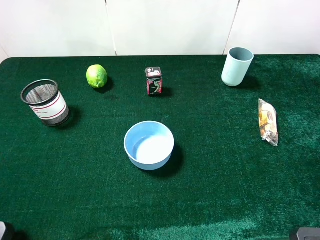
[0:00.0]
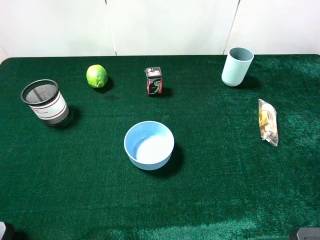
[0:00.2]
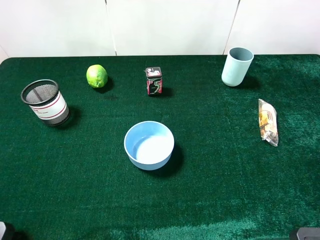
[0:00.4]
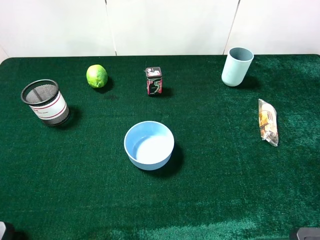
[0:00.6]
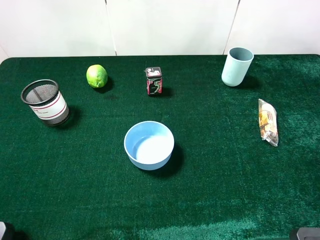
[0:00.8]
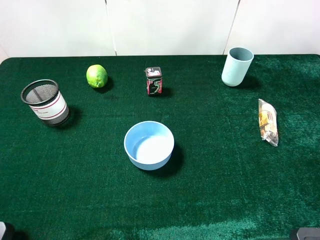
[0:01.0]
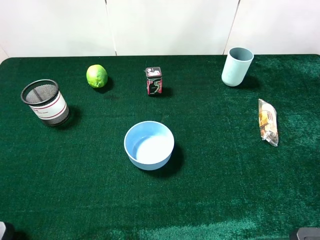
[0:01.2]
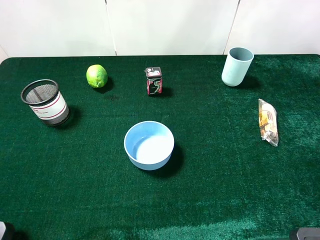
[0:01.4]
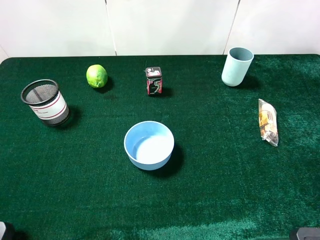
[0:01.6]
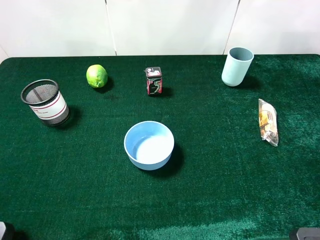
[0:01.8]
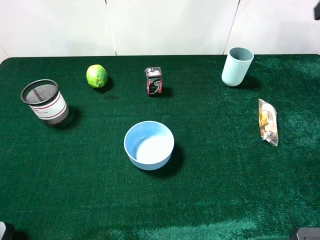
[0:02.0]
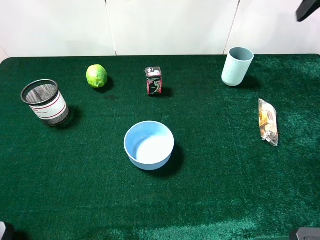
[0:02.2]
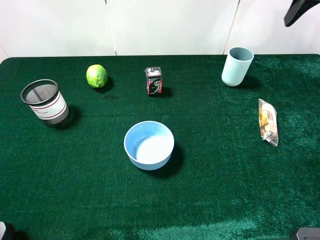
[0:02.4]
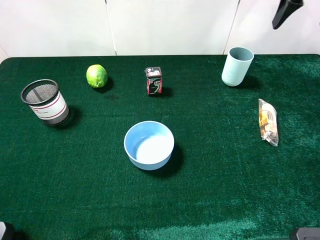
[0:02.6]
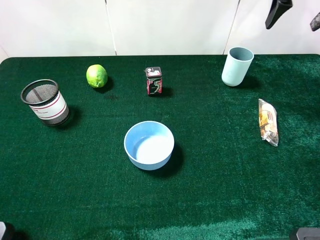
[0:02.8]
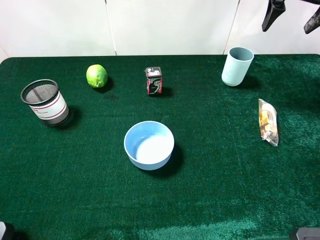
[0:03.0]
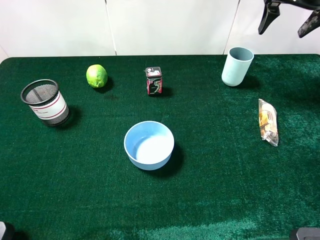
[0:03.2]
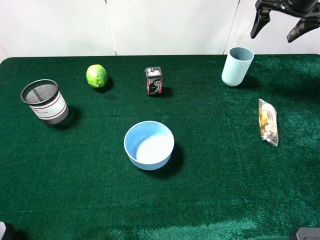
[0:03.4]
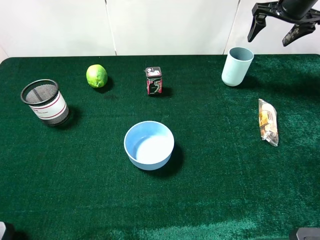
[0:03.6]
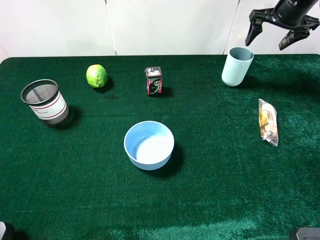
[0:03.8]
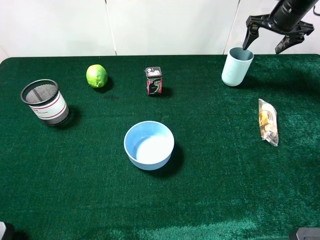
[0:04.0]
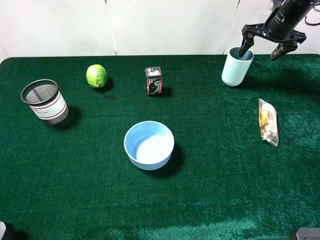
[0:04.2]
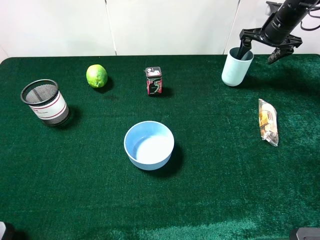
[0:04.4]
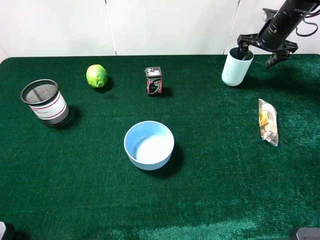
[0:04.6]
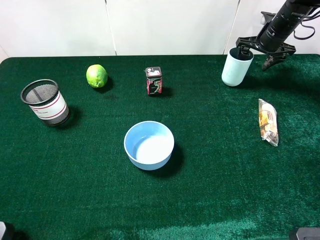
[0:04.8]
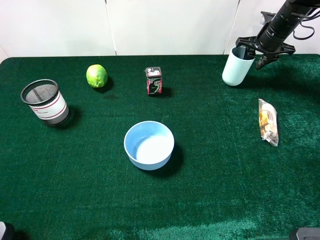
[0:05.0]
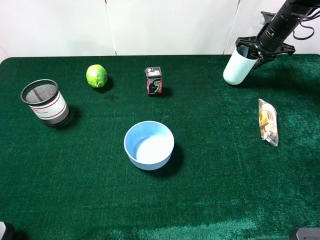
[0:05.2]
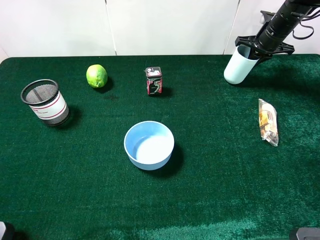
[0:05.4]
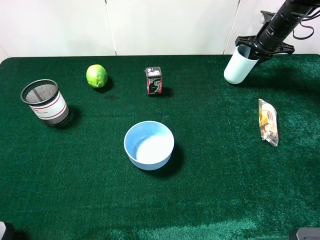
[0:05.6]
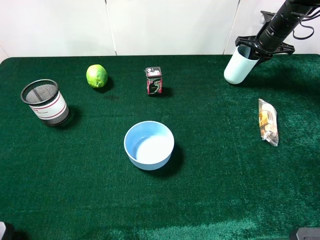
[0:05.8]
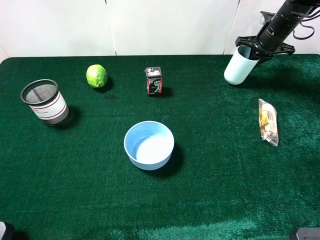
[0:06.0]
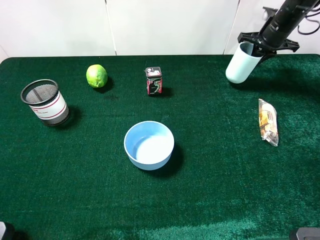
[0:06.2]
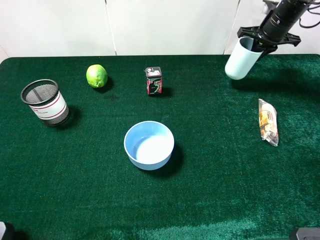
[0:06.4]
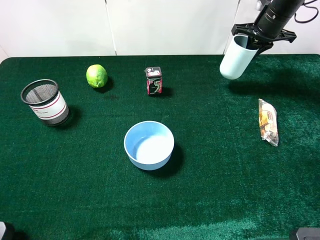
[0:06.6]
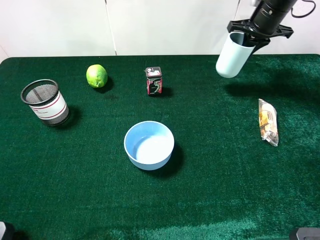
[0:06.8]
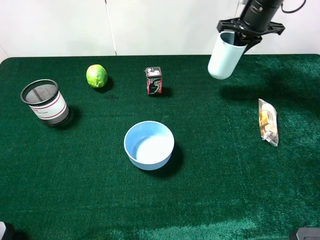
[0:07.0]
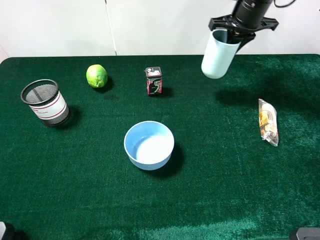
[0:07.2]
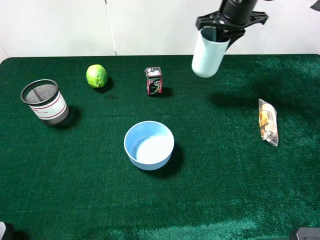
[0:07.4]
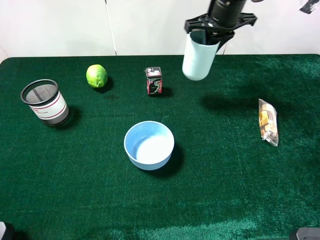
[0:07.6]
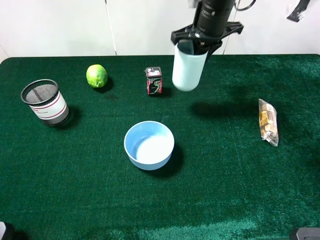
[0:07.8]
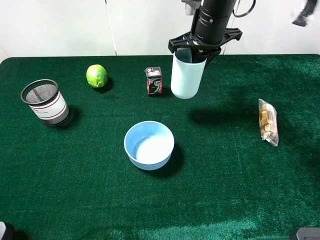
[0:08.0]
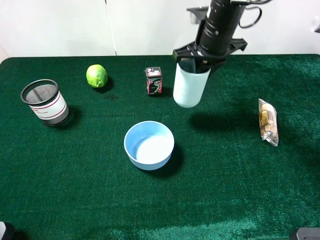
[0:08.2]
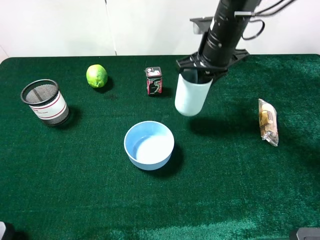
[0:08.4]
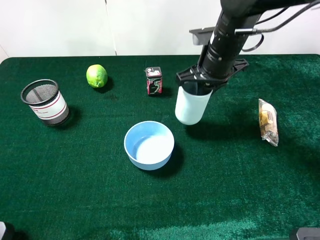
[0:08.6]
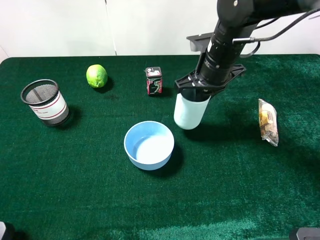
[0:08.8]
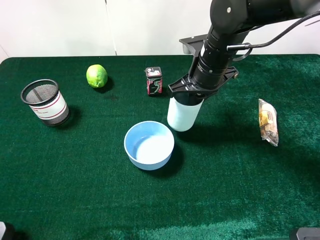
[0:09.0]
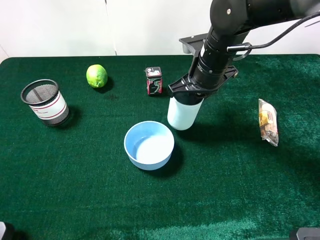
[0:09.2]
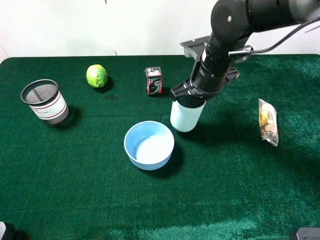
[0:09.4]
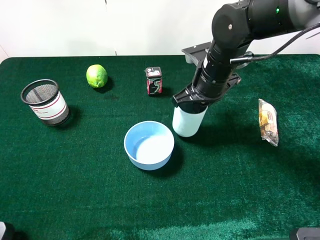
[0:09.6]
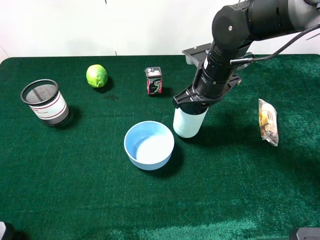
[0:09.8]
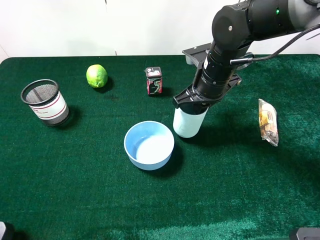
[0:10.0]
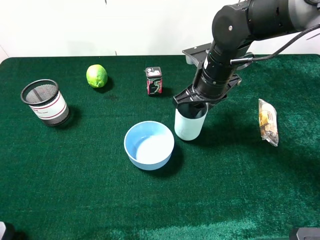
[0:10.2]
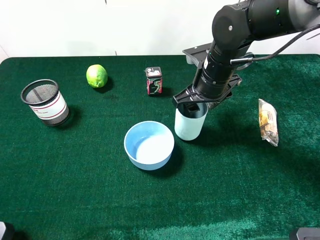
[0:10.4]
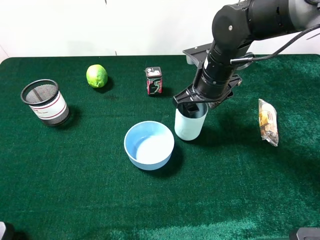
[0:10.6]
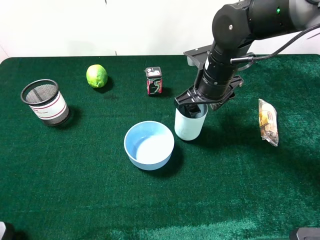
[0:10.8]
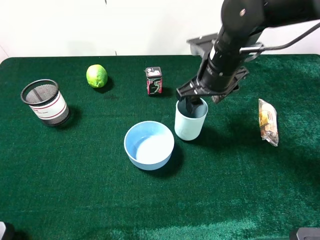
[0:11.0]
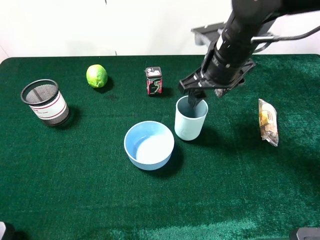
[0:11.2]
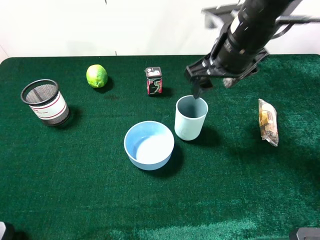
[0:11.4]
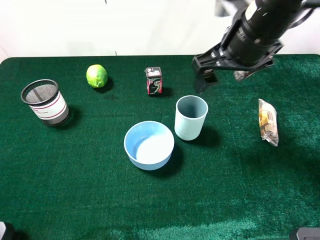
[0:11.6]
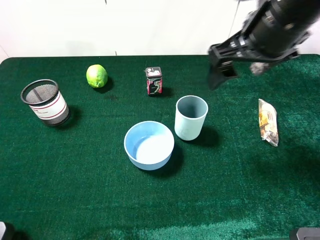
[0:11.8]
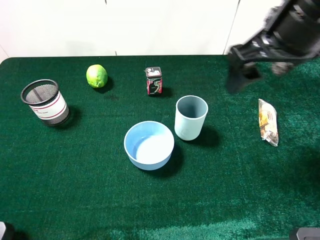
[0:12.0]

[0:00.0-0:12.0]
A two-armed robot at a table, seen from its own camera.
Task of the whole recording: the gripper move the object.
Step, 0:00.0 to 0:05.6: Grasp the cyan cup with the right gripper mangosteen.
Step, 0:05.8 to 0:11.0: Place the cyan cup on the table with the right gripper.
0:01.6 to 0:03.0: The right gripper is displaced forward by roughly 25 cm.
0:03.0 to 0:04.4: The right gripper moves downward and forward, about 15 cm.
0:04.4 to 0:06.0: The right gripper closes.
0:06.0 to 0:07.6: The right gripper moves to the left, upward and backward, some 20 cm.
0:07.6 to 0:09.0: The right gripper travels backward and downward by about 15 cm.
0:09.0 to 0:10.4: The right gripper opens up.
0:10.4 to 0:12.0: The right gripper travels upward, backward and to the right by some 20 cm.

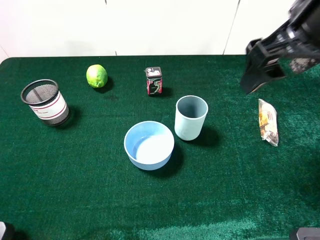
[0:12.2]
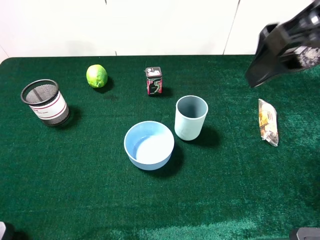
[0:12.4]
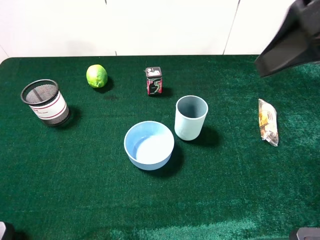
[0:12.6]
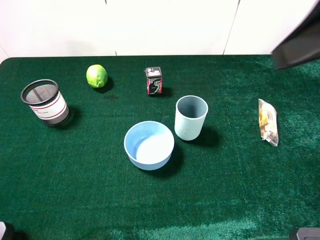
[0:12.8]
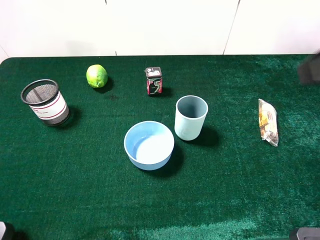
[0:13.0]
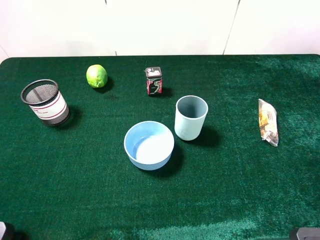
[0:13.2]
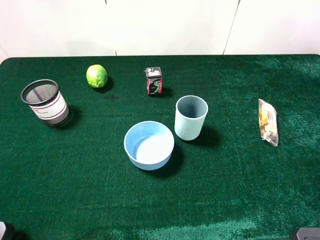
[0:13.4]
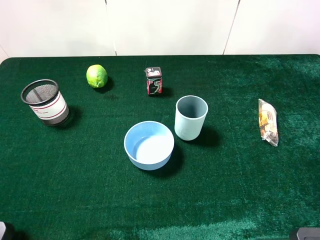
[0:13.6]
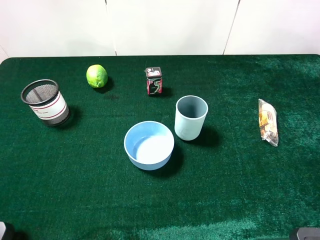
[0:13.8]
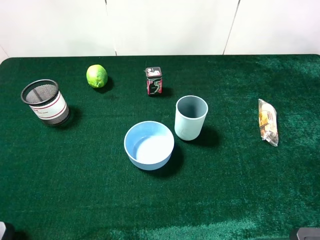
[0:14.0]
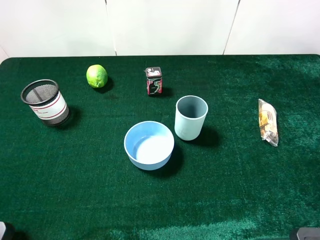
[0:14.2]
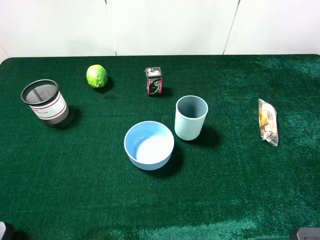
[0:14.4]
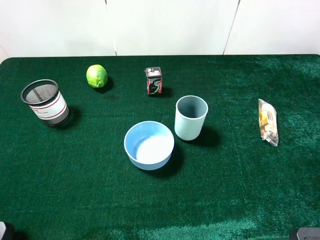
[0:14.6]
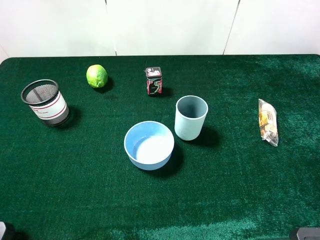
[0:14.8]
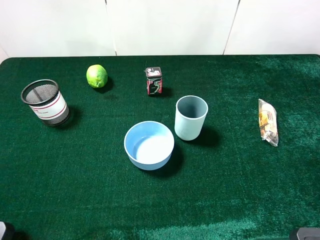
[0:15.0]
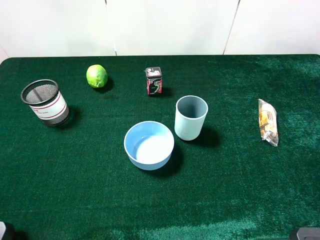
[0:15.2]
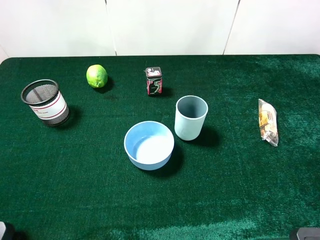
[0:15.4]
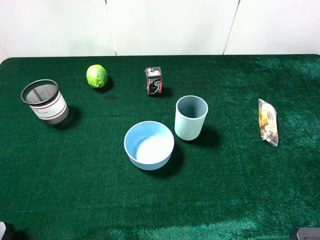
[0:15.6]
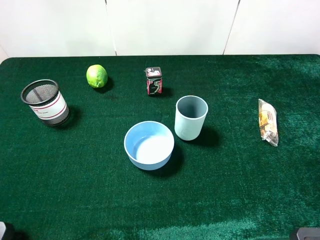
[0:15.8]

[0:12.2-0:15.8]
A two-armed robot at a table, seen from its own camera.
Task of the whole recording: the gripper move the object.
0:12.2 to 0:14.0: The right gripper goes approximately 20 cm backward and to the right.

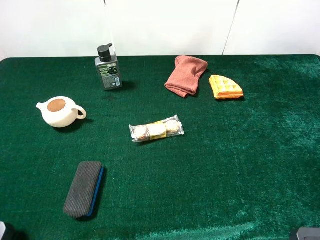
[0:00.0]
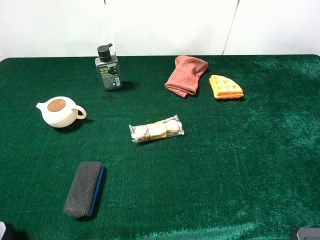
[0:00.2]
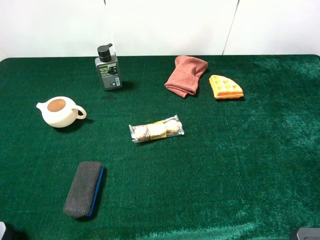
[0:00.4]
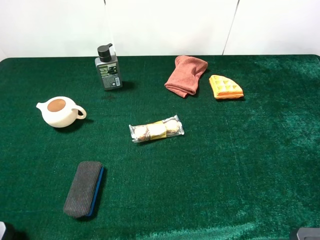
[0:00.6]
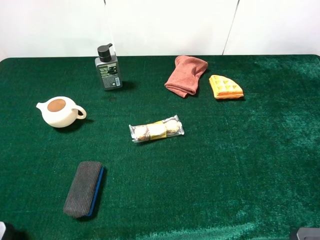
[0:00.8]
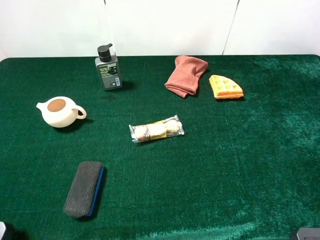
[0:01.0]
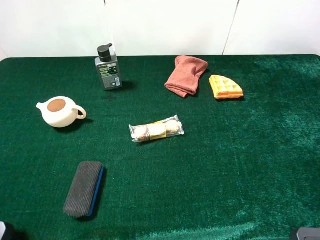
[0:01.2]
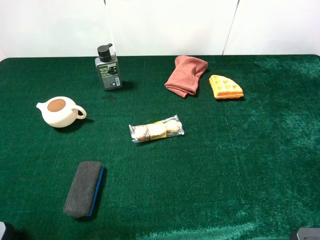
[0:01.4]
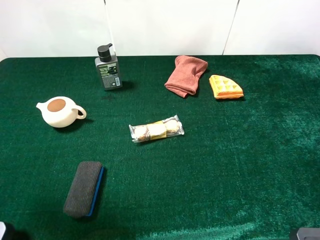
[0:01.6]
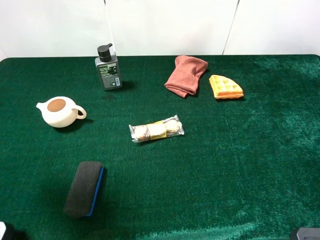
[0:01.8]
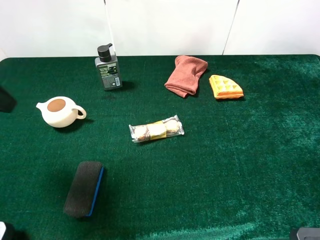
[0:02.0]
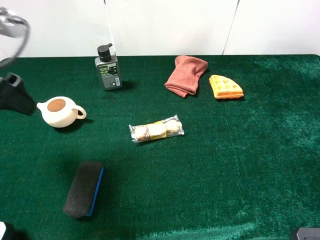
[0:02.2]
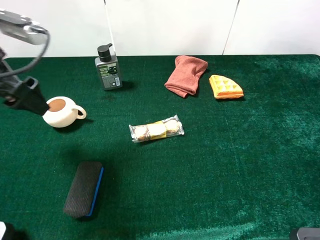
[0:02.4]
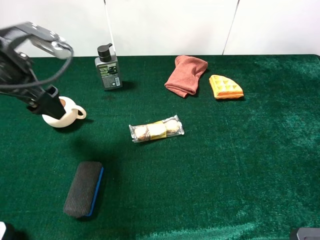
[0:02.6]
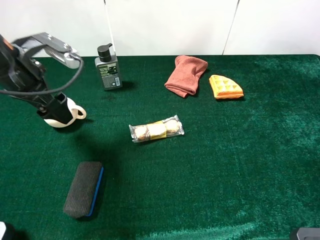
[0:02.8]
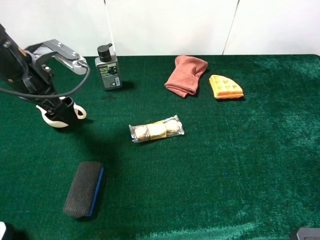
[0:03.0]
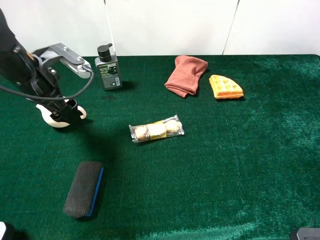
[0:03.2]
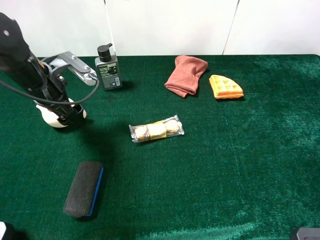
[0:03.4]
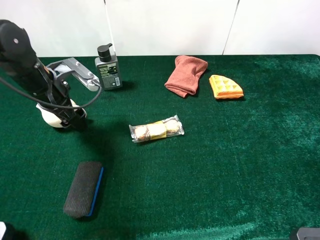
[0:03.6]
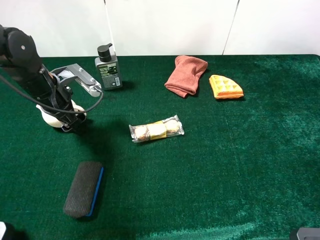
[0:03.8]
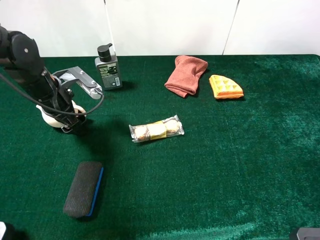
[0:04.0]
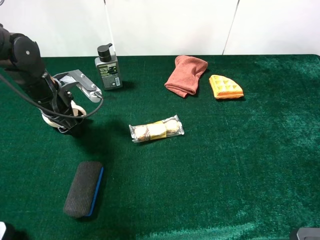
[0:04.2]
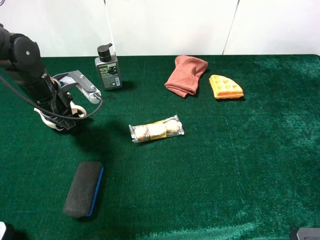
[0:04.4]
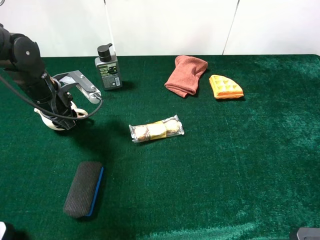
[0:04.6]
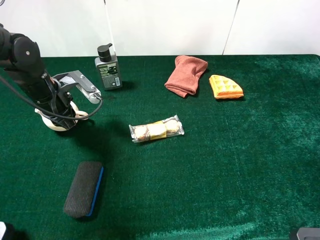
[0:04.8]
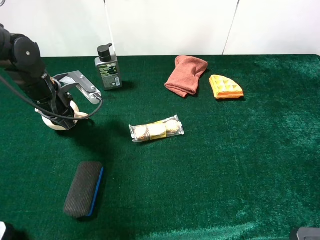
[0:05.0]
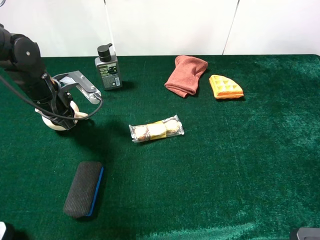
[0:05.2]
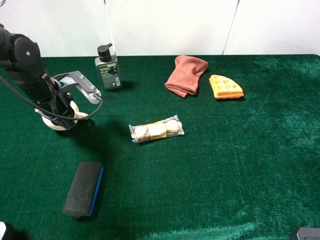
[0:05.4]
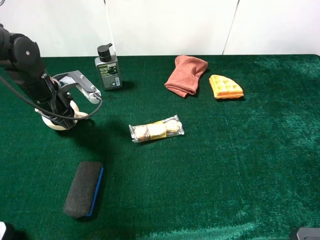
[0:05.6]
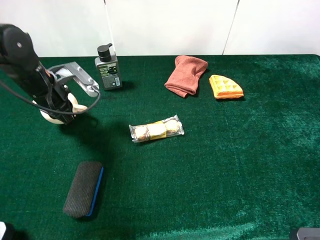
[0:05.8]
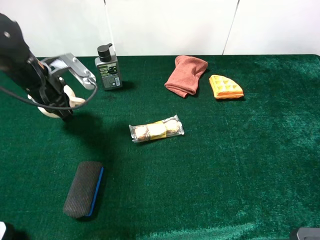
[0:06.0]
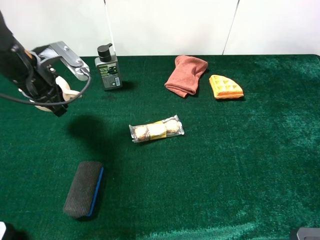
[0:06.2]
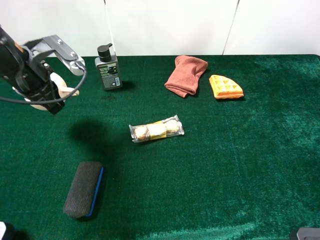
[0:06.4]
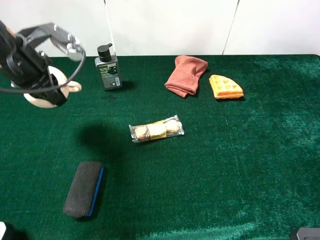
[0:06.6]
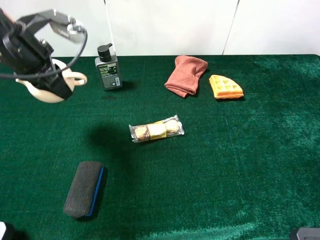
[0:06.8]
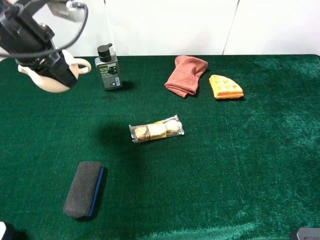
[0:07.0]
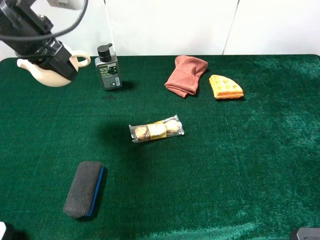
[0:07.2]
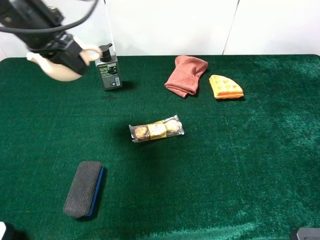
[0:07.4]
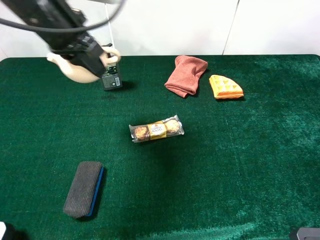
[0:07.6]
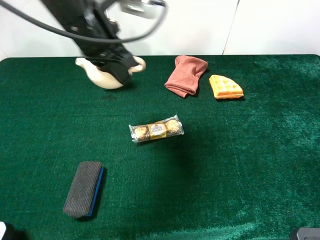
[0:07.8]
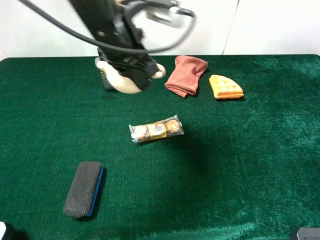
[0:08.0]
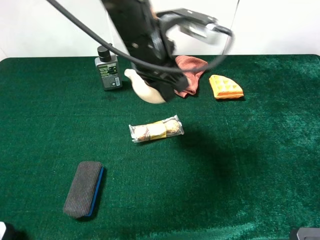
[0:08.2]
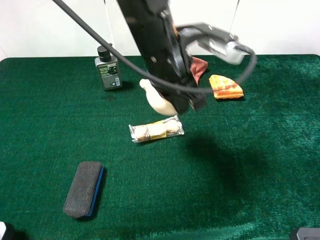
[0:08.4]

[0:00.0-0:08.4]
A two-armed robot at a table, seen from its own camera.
Task of the whole recording: the gripper move the object.
Step, 0:00.0 to 0:04.8: Grasp the blue blackboard earser with the left gripper.
0:01.4 to 0:02.8: The left gripper travels forward and downward by roughly 20 cm.
0:02.8 to 0:04.2: The left gripper heads downward, covering approximately 10 cm.
0:04.2 to 0:05.6: The left gripper closes.
0:05.6 to 0:07.0: The left gripper moves upward, some 15 cm.
0:07.0 to 0:08.4: The left gripper goes some 25 cm to the right.
